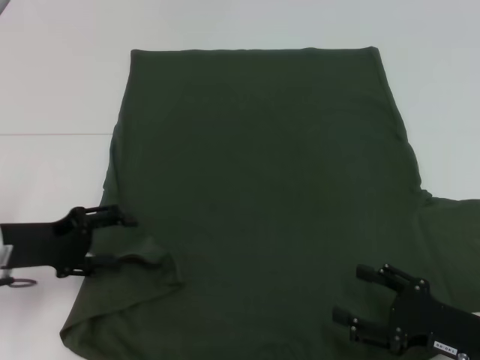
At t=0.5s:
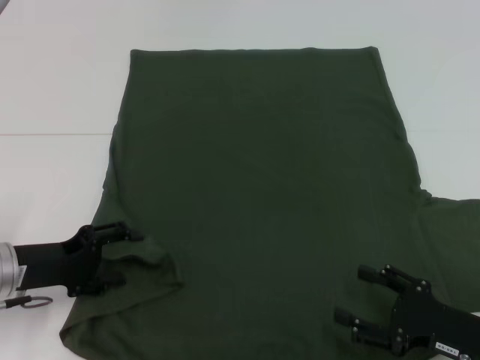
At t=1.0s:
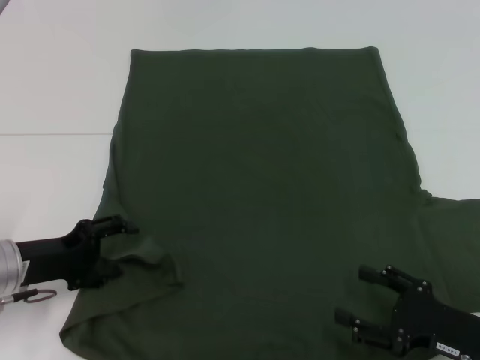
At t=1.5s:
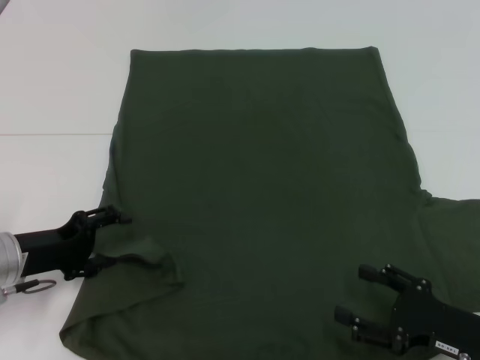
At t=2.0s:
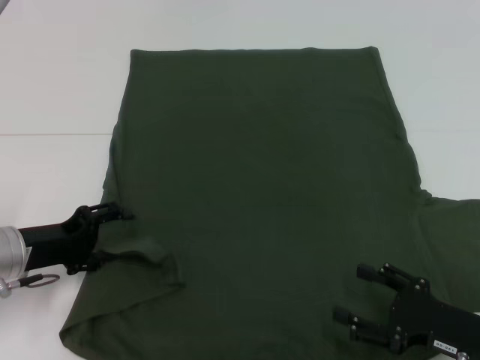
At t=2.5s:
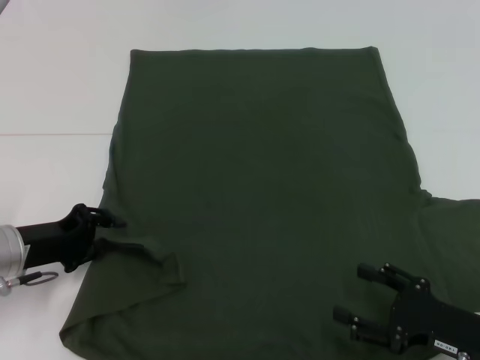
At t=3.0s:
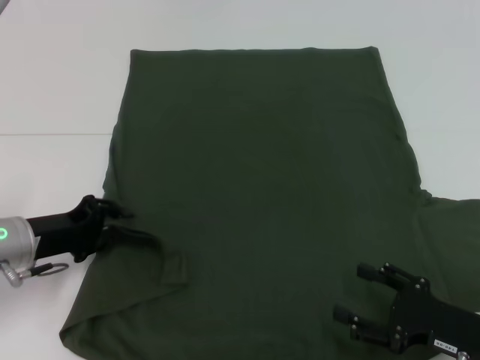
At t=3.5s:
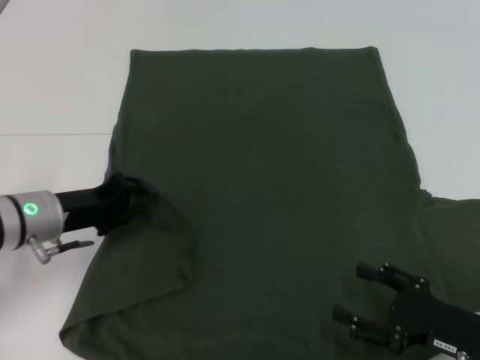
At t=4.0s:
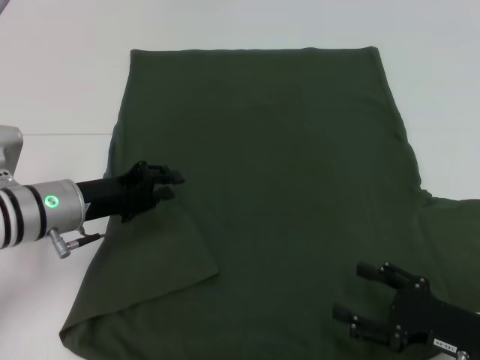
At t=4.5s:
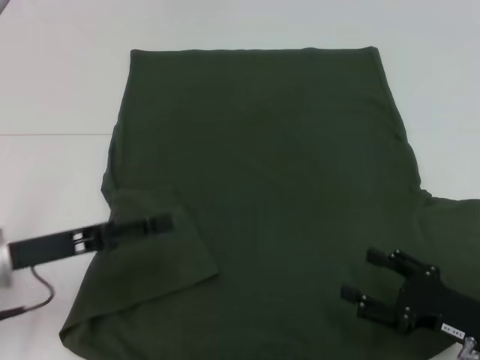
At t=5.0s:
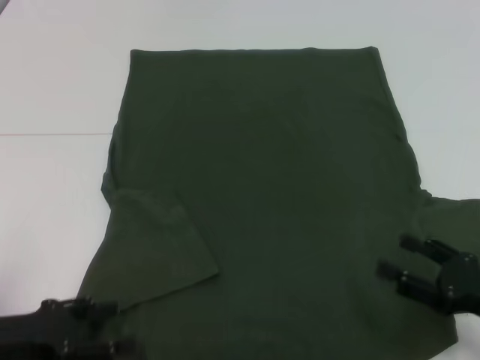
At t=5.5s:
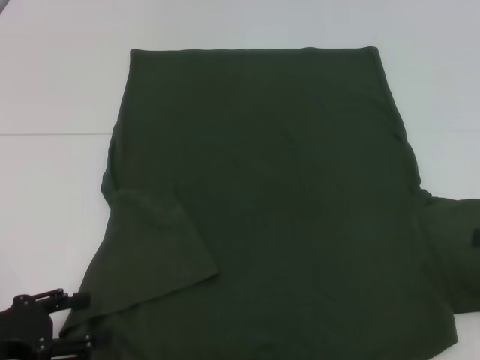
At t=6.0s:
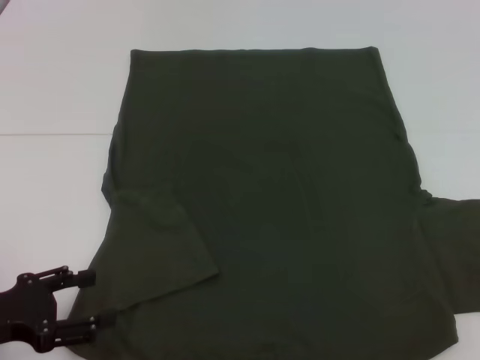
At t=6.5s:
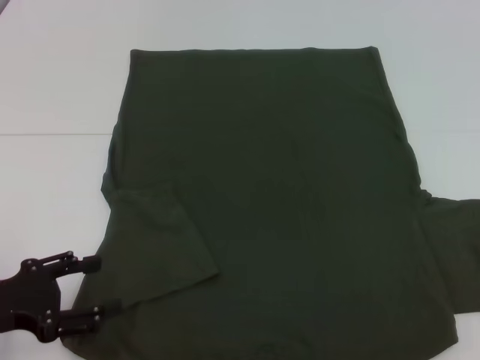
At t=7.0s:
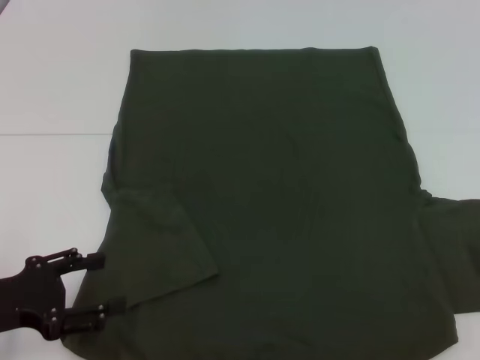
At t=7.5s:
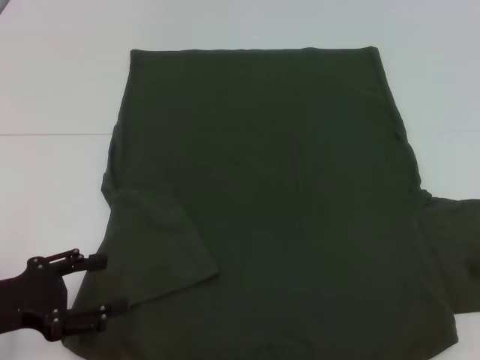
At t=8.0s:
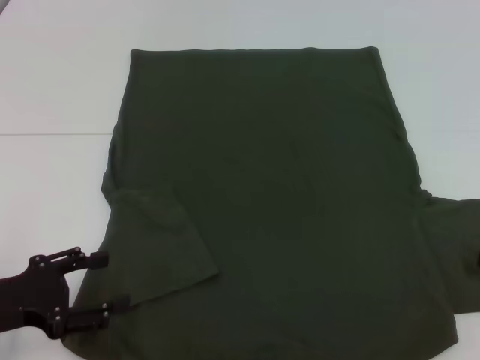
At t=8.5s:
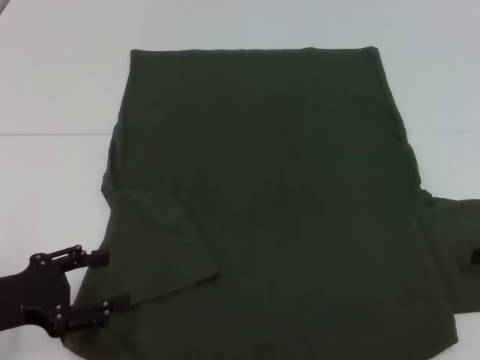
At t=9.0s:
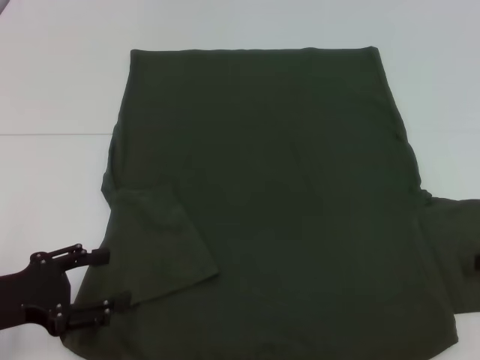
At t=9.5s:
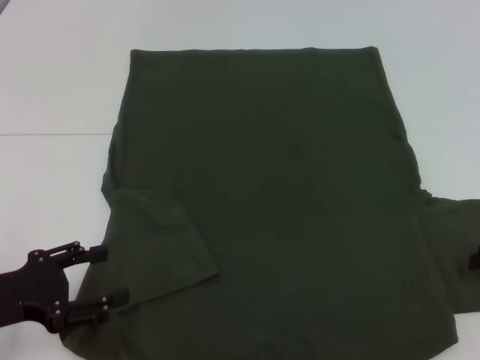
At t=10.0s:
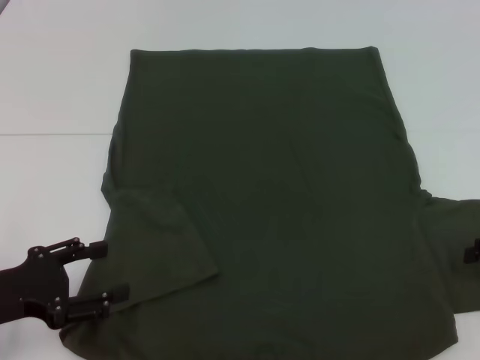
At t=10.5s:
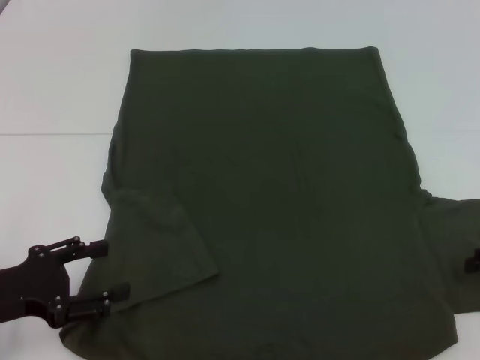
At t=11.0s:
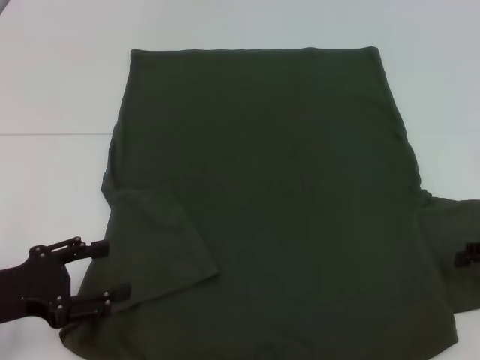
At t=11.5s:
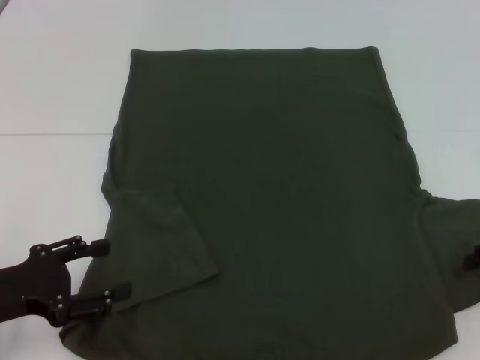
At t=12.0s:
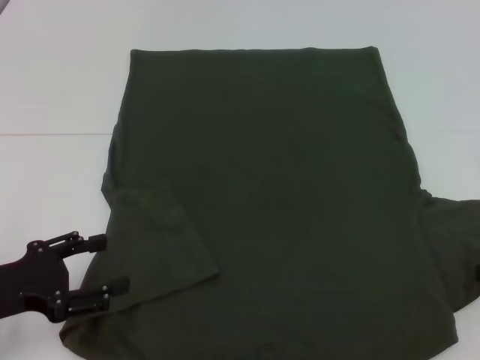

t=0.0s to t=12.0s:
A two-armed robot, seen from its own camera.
t=0.0s to t=2.0s: The grippers make only small movements.
t=2.0s to t=4.0s: The left gripper heads to the right, covering roughly 5 cm, and closes up.
t=4.0s to t=6.0s: The right gripper goes about 20 cm to the right, upward and forward. Meanwhile the left gripper moves backward and to the left, approximately 15 cm, and opens its fingers.
t=8.0s to t=10.0s: Neither gripper changes place.

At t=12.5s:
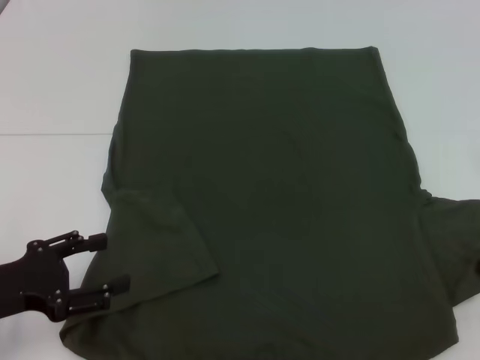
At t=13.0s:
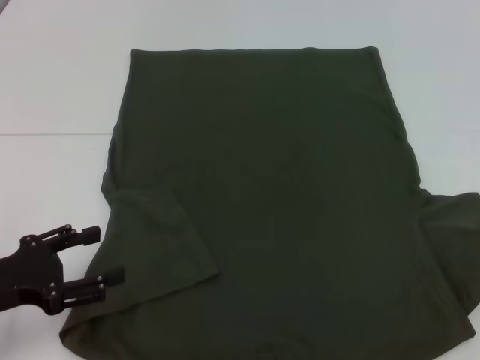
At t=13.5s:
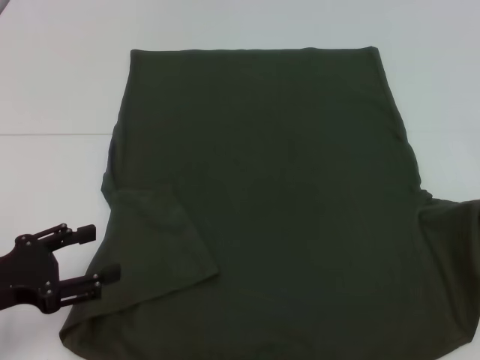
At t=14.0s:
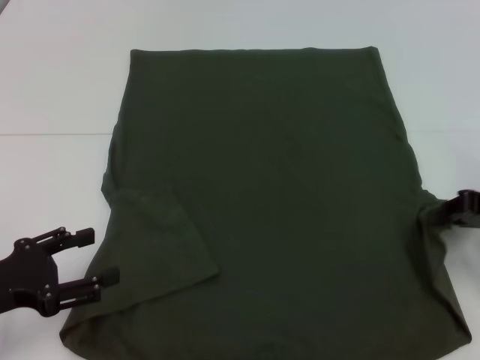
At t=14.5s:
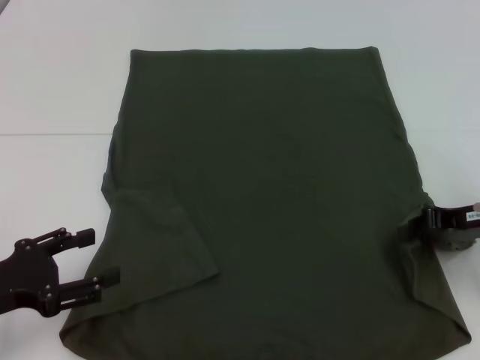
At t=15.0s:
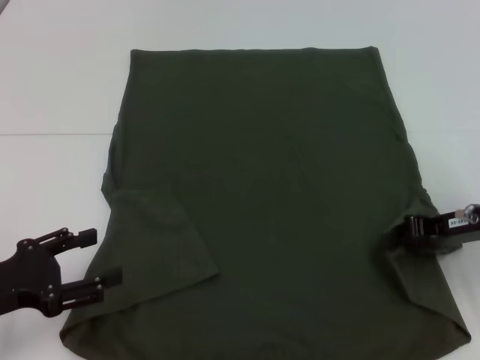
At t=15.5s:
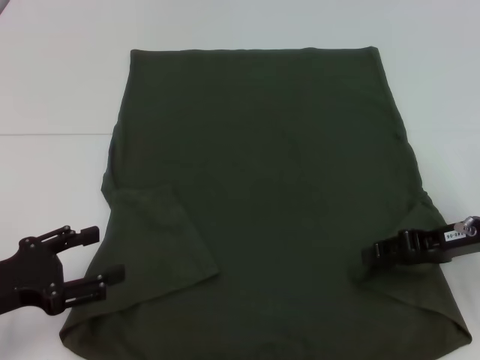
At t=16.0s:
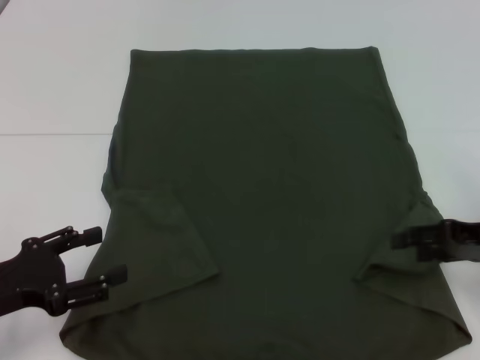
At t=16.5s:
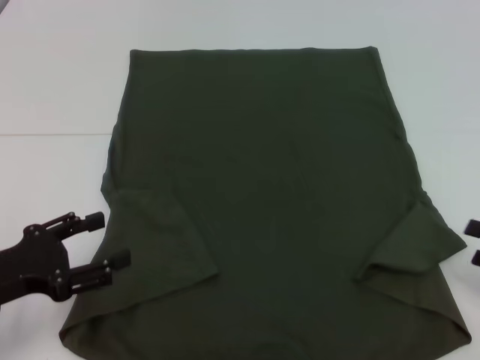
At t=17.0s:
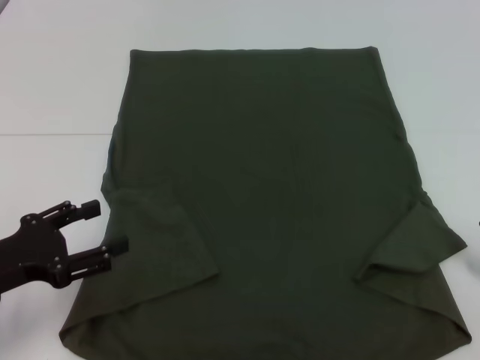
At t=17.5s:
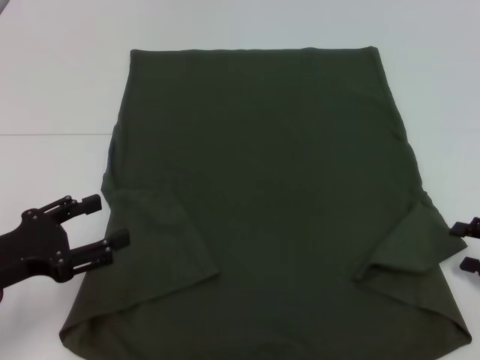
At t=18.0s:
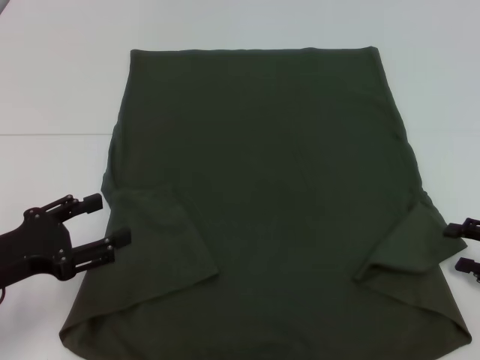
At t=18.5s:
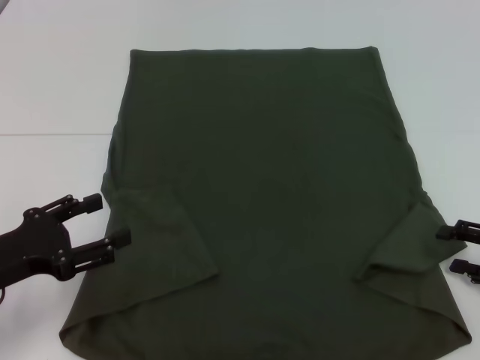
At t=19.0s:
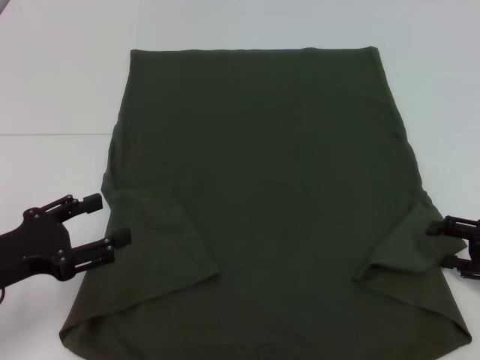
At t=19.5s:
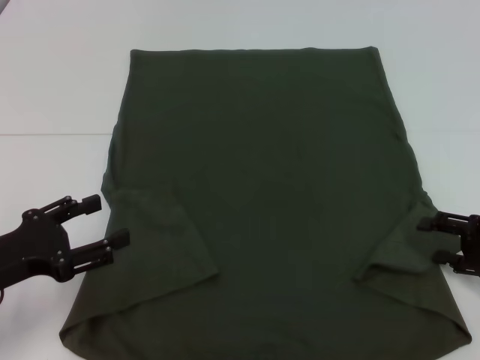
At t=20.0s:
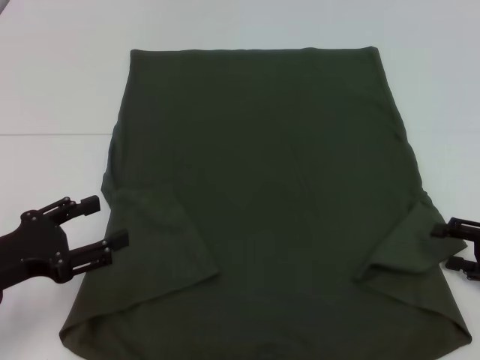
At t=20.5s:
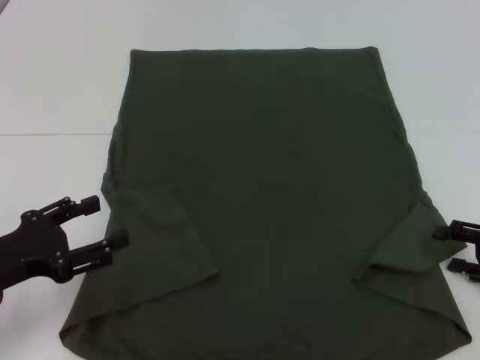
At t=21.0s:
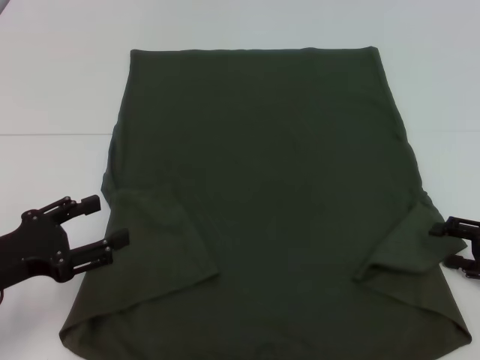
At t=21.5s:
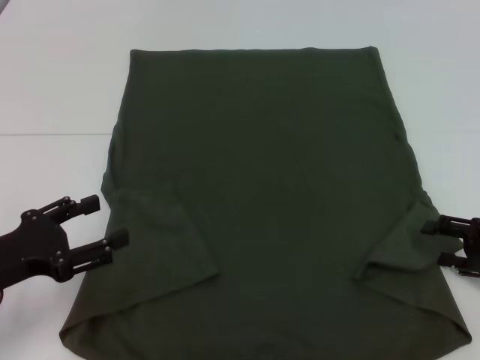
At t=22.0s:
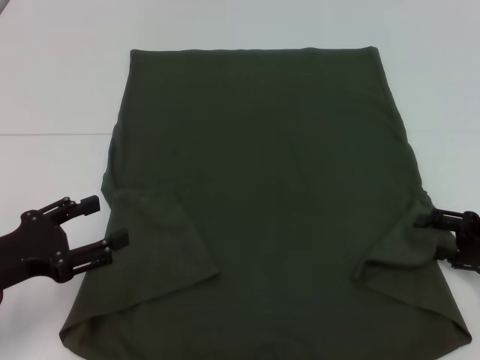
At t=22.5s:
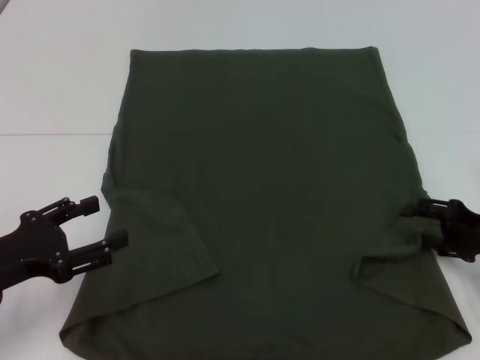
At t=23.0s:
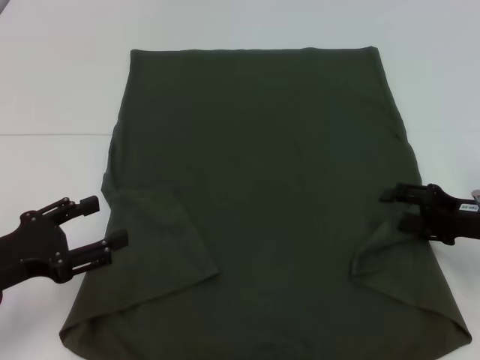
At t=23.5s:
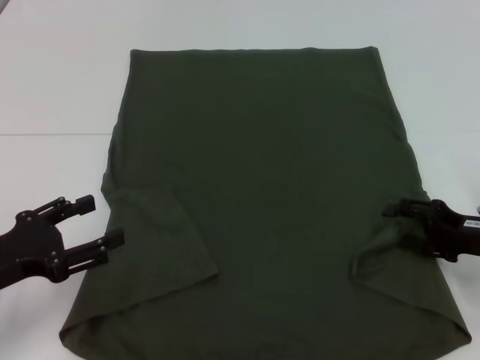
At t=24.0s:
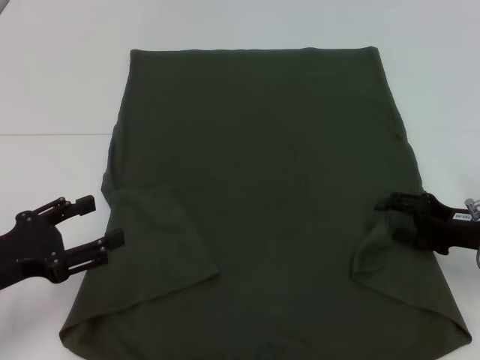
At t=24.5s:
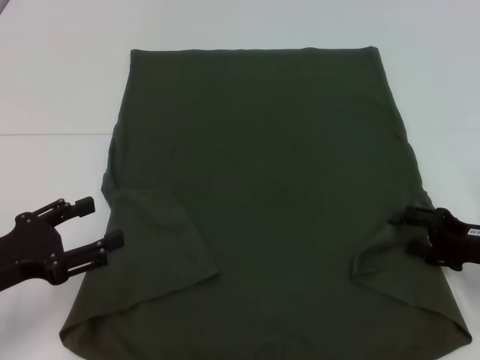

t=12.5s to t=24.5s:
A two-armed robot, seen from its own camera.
t=12.5s to t=14.5s: The right gripper is displaced to the left by some 10 cm.
t=14.5s to t=16.5s: The right gripper shifts roughly 15 cm backward and to the right, and opens its fingers.
t=16.5s to t=18.5s: The grippers make only small movements.
t=18.5s to t=22.5s: The grippers move only a little.
t=22.5s to t=24.5s: The grippers move only a little.

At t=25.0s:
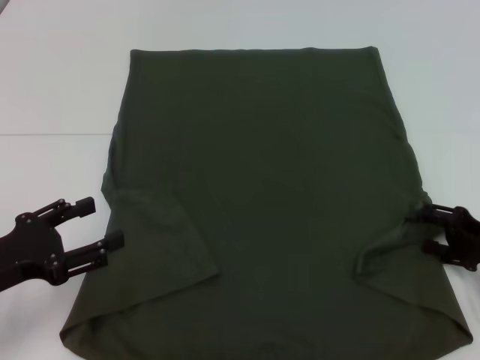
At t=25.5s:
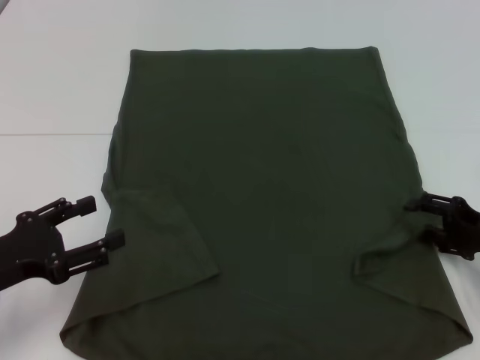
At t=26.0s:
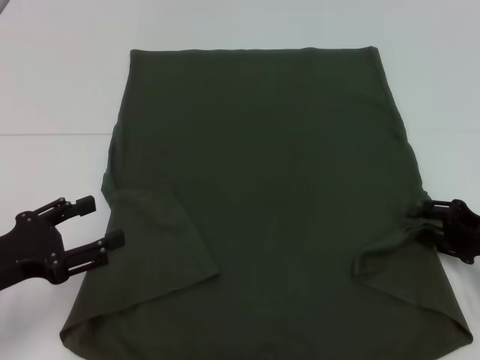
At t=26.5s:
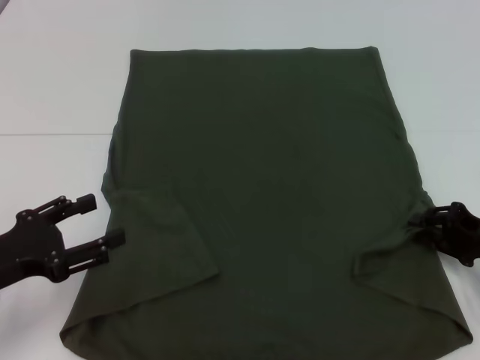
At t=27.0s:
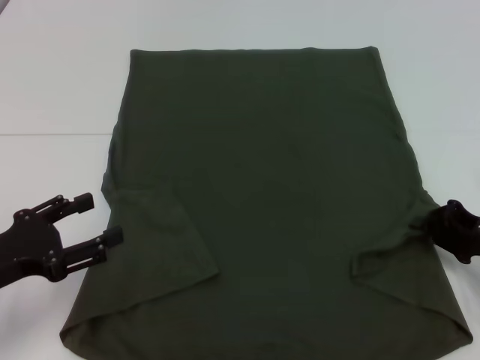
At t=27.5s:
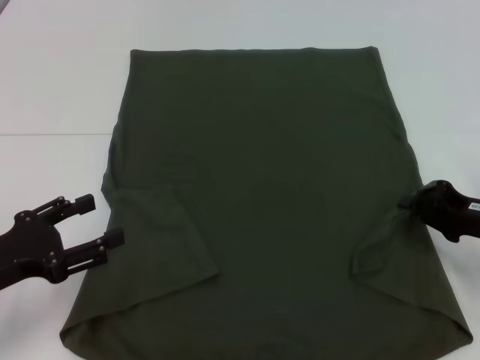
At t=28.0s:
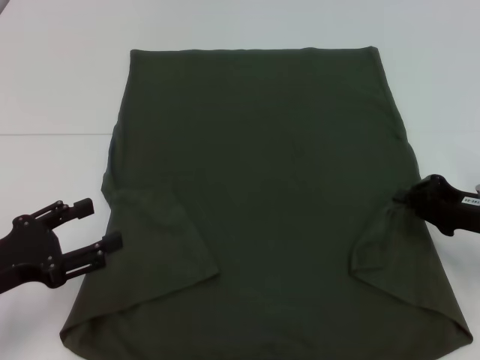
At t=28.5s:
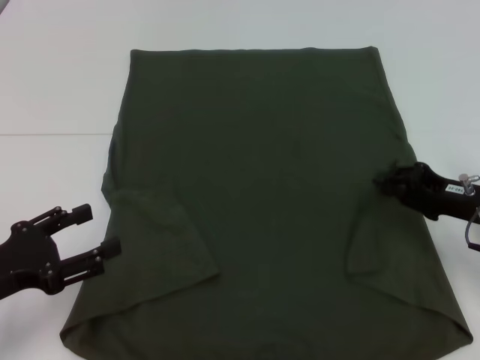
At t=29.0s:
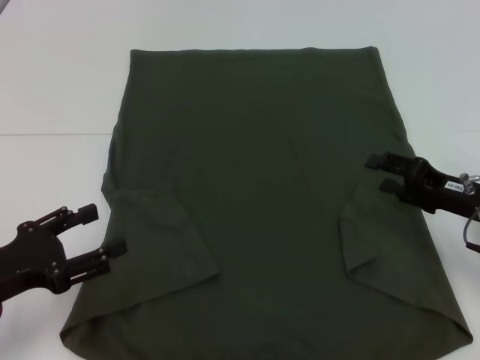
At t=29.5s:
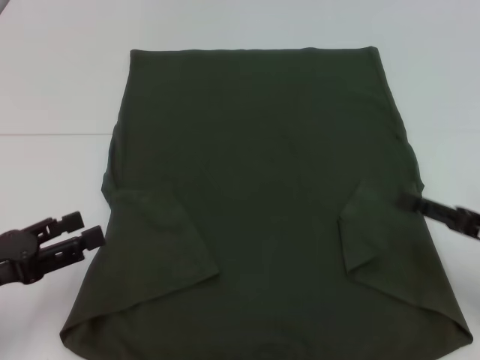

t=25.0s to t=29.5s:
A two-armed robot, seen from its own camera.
Step, t=25.0s to t=29.5s: Fold the bottom right sleeve with your right hand.
t=25.0s to t=27.0s: The right gripper closes.
t=27.0s to t=29.5s: The right gripper opens up.
